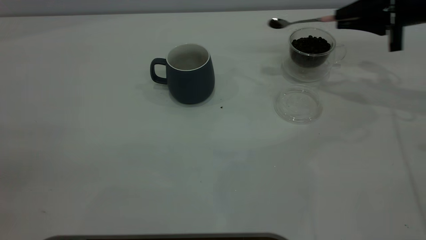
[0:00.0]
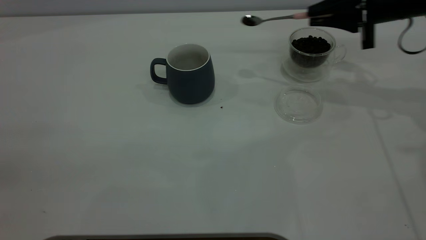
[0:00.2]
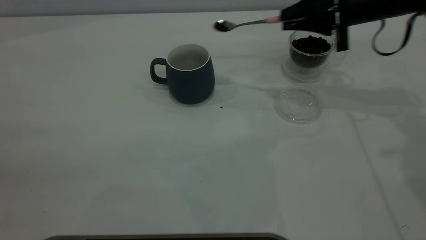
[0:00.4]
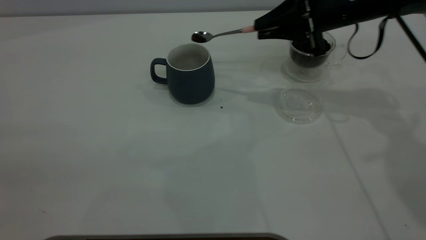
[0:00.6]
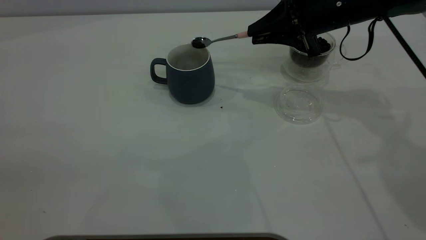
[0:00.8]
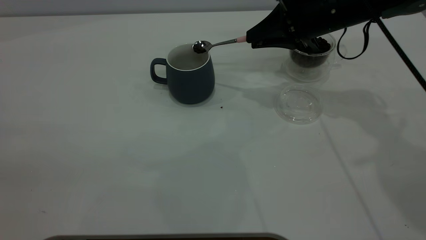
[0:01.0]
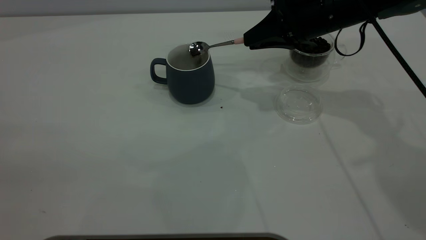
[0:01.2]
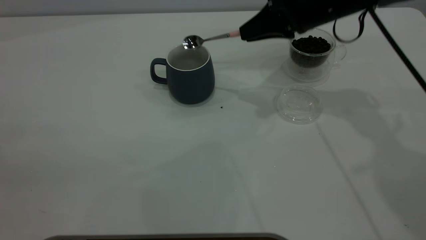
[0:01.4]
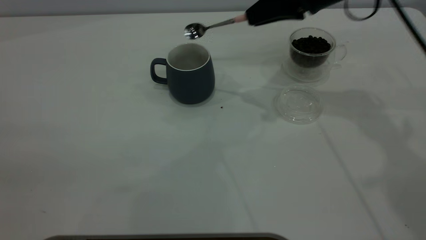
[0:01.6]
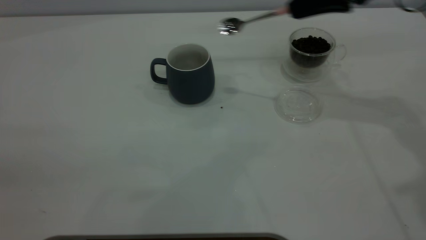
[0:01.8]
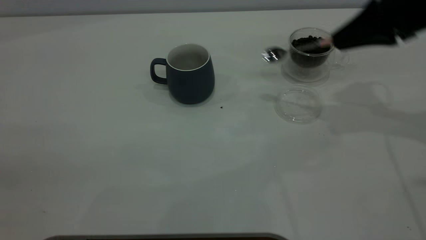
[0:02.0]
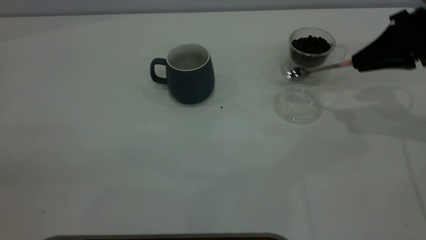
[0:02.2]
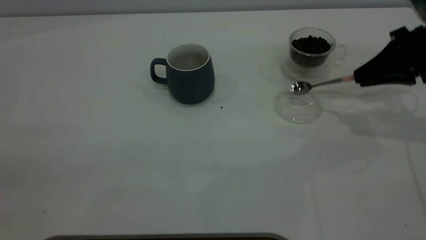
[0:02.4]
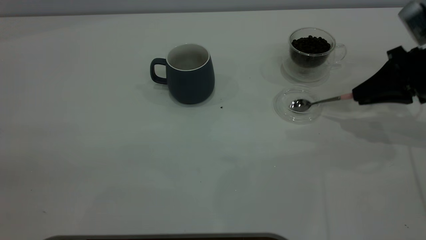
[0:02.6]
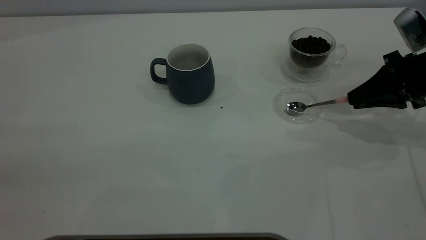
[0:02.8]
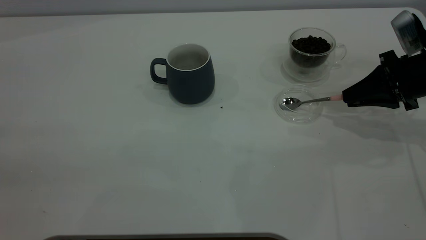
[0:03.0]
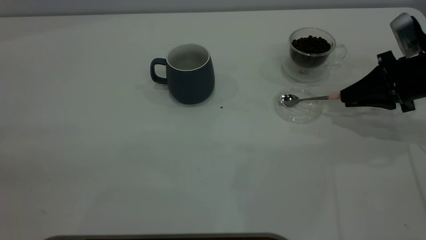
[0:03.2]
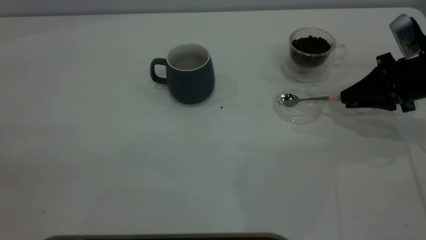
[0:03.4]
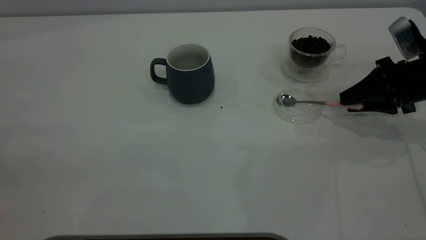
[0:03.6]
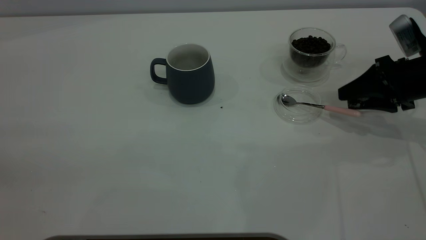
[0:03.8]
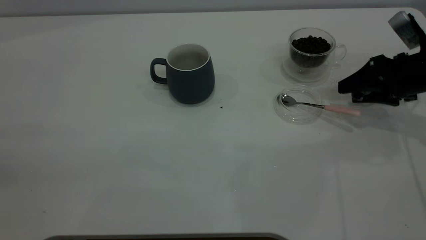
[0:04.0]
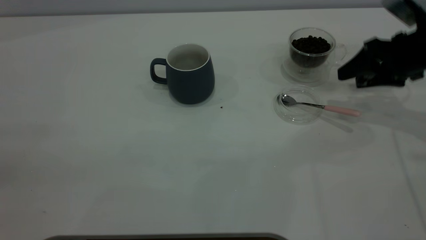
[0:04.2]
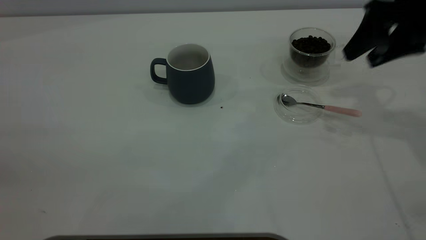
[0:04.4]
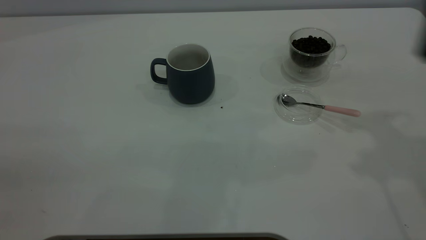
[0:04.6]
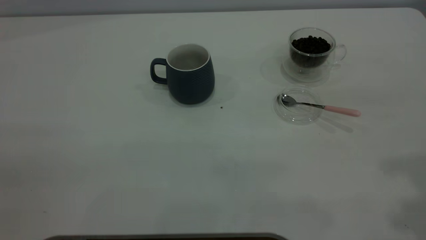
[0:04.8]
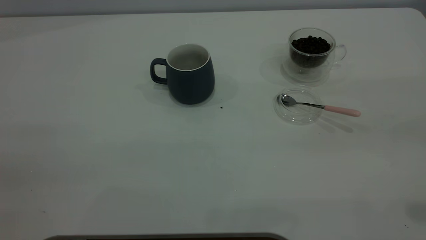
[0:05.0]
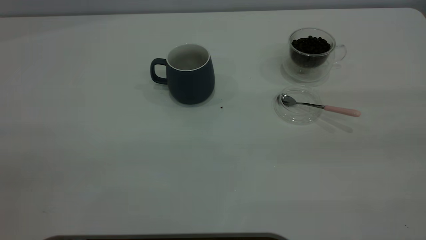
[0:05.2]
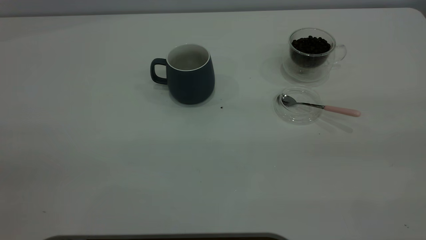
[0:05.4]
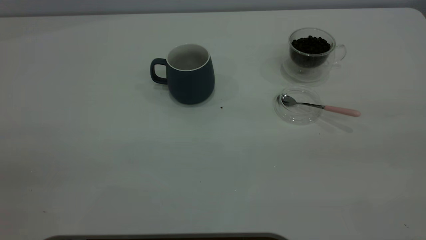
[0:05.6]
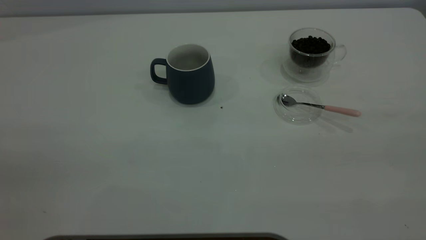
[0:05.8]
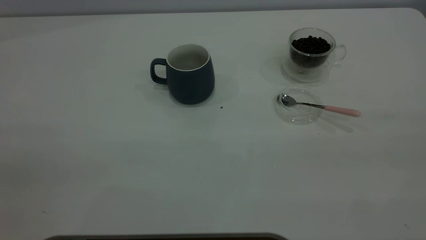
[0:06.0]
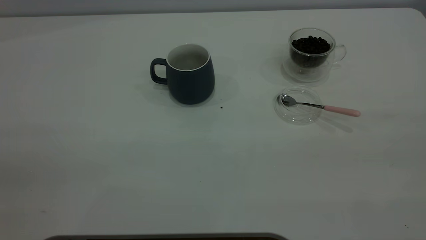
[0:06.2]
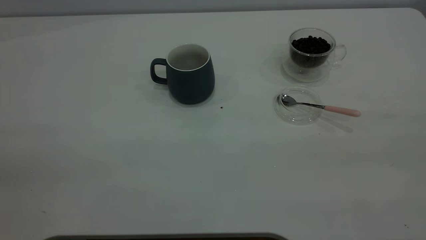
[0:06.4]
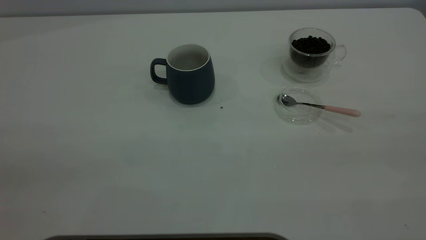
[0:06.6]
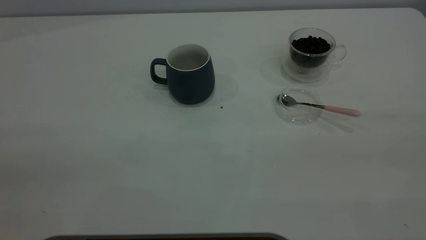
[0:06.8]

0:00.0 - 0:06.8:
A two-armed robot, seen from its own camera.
Task of the whole recording: the left gripper place the grey cup in the center of the table, the right gripper take the pink spoon from the cup lid and scoop out the coffee beans from the coffee cup and put them into the grey cup, the right gripper put the spoon back into the cup lid.
Step, 0:01.8 - 0:04.2: Place the spoon back in its original place.
0:00.0 - 0:01.4: The right gripper moves to the left, roughly 15 cm.
0:01.4 - 0:02.8: The right gripper moves to the right, downward and backward, roughly 20 cm.
0:02.8 - 0:04.0: The right gripper opens.
0:04.0 - 0:05.4: The right gripper shifts about 40 cm backward and upward.

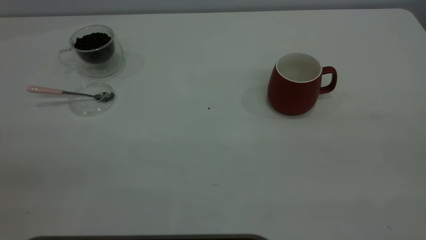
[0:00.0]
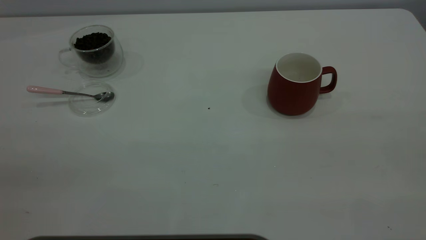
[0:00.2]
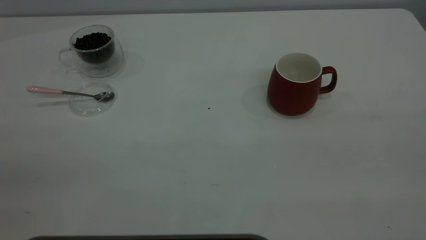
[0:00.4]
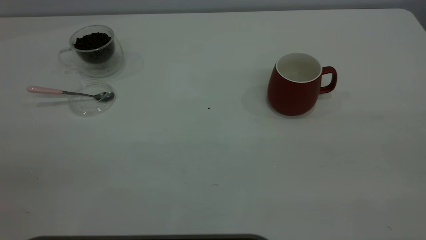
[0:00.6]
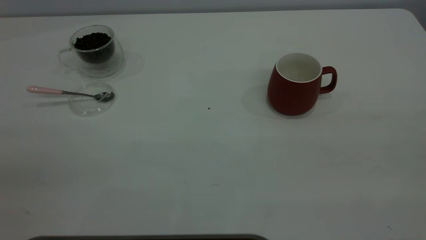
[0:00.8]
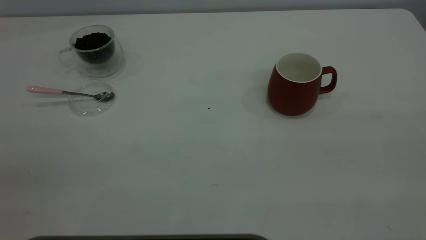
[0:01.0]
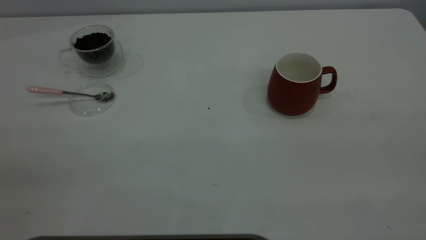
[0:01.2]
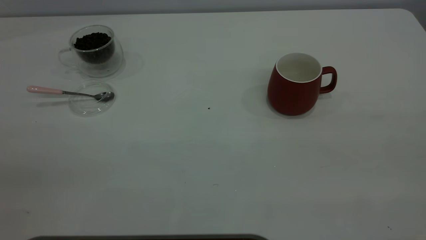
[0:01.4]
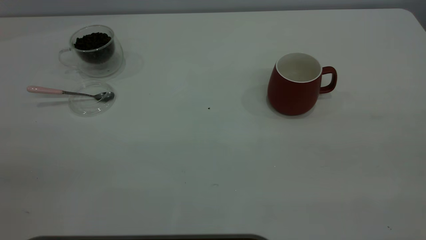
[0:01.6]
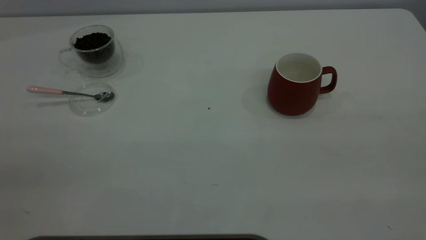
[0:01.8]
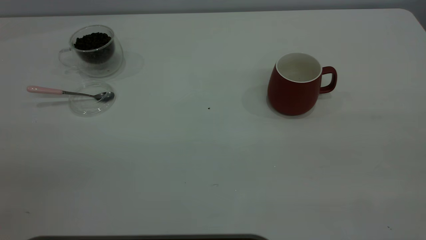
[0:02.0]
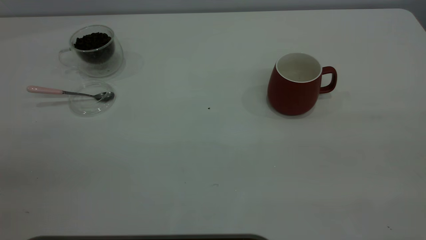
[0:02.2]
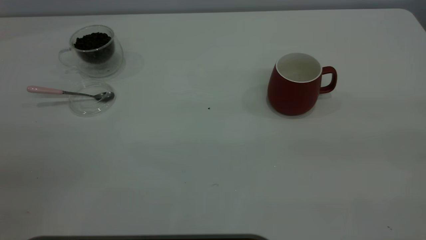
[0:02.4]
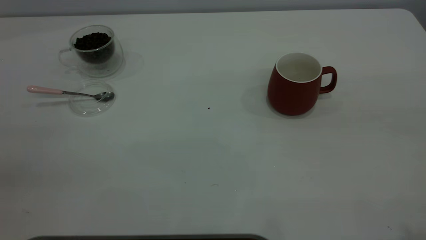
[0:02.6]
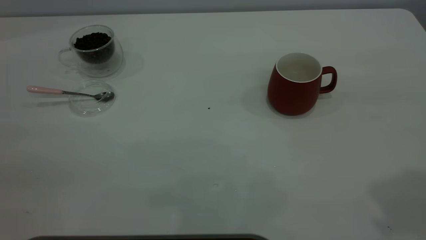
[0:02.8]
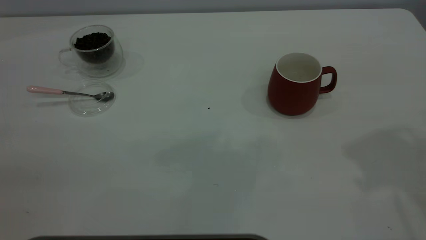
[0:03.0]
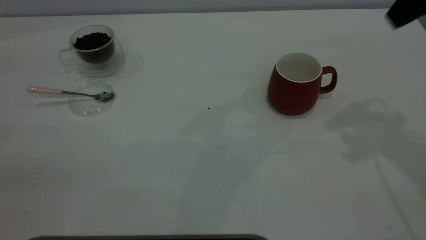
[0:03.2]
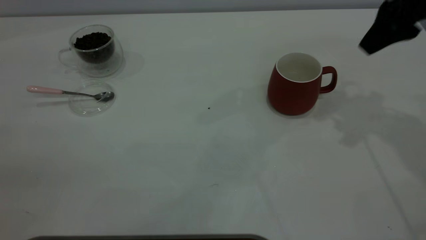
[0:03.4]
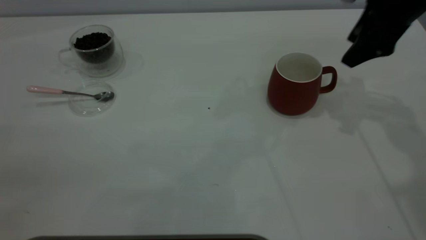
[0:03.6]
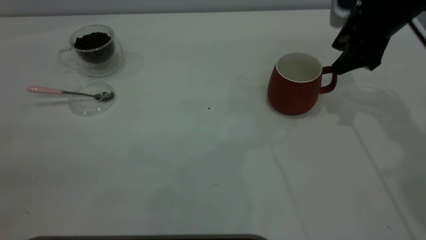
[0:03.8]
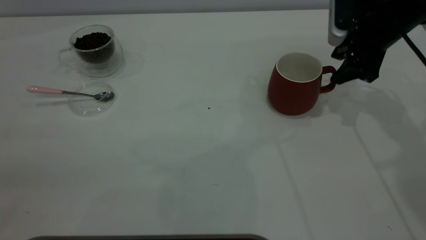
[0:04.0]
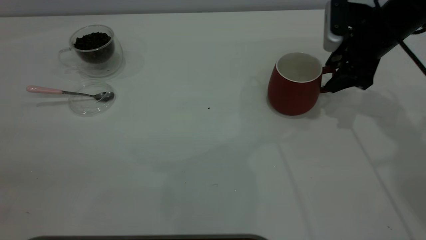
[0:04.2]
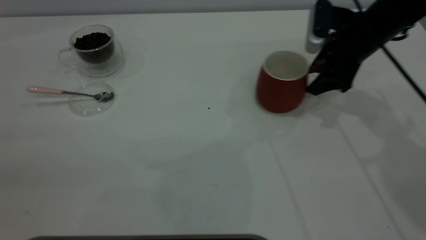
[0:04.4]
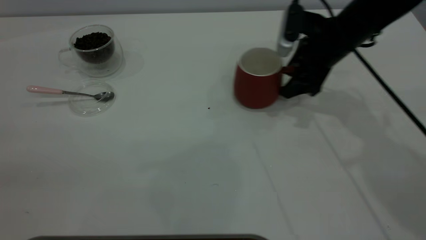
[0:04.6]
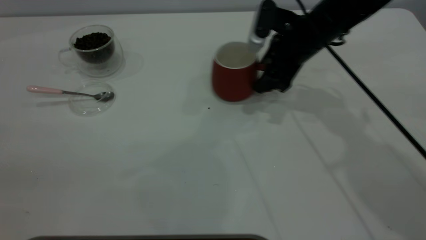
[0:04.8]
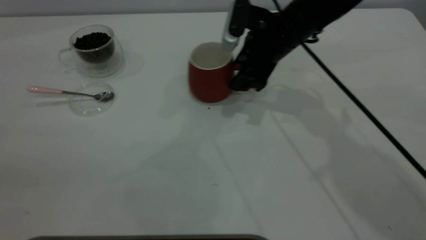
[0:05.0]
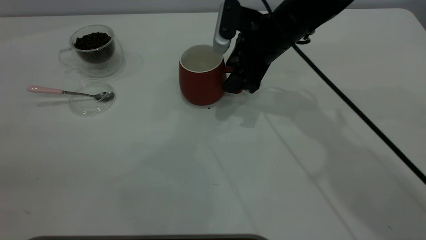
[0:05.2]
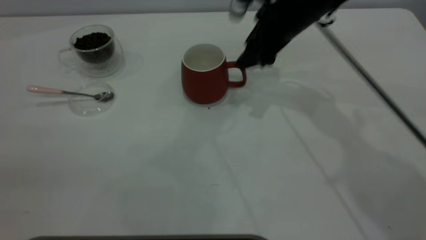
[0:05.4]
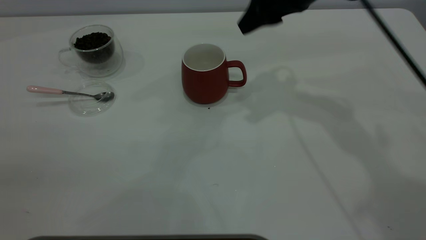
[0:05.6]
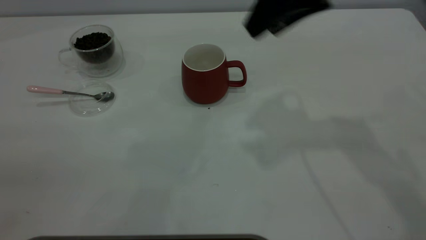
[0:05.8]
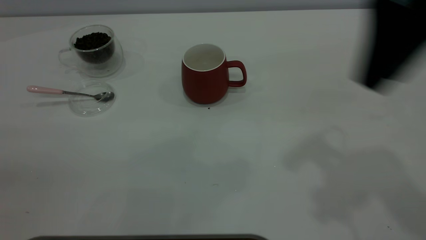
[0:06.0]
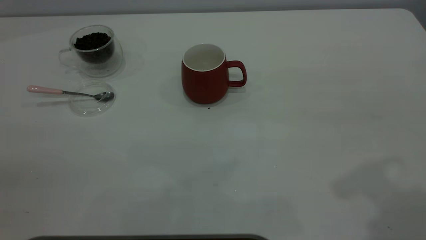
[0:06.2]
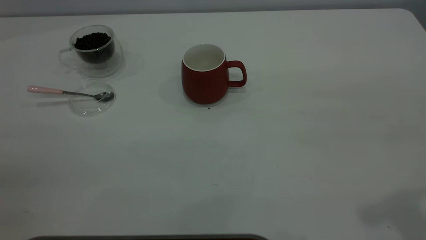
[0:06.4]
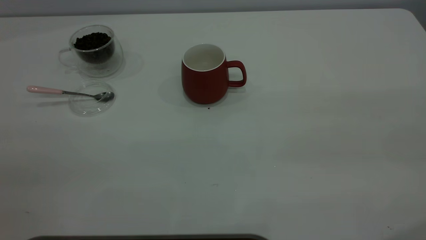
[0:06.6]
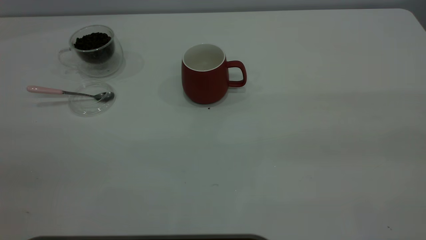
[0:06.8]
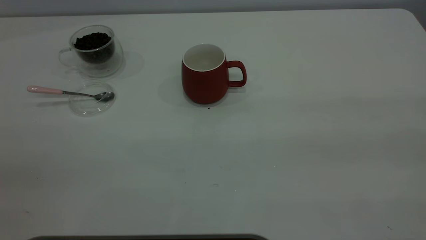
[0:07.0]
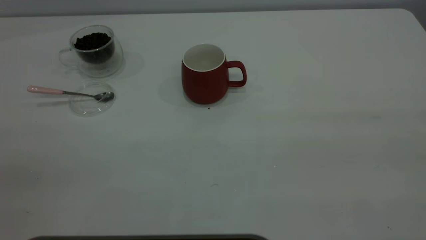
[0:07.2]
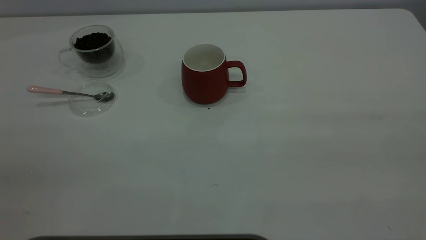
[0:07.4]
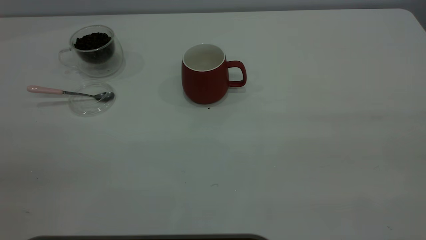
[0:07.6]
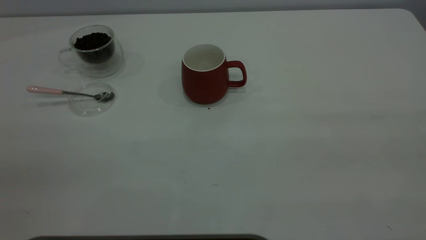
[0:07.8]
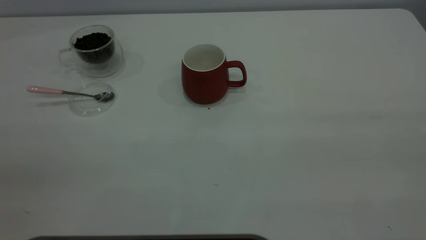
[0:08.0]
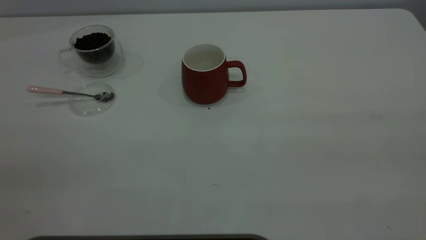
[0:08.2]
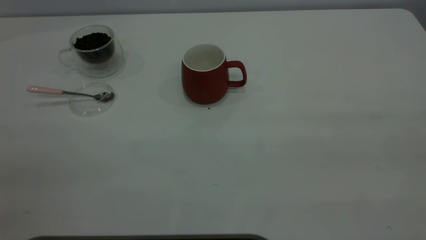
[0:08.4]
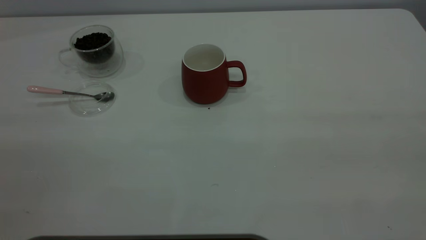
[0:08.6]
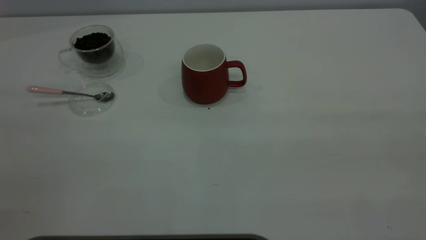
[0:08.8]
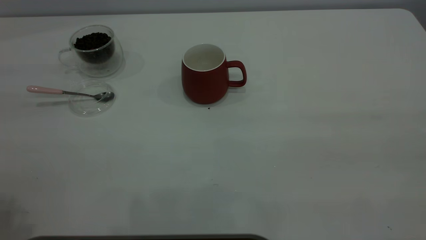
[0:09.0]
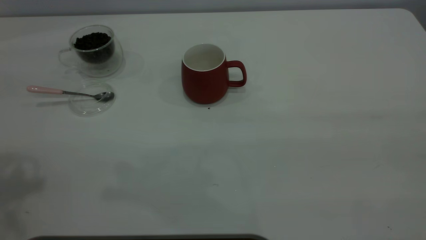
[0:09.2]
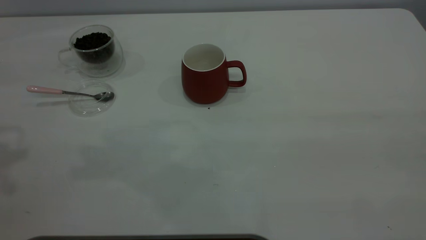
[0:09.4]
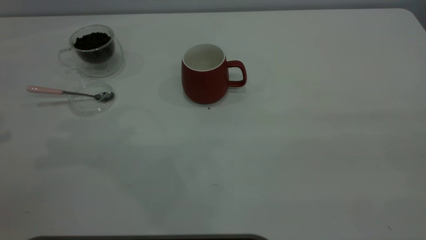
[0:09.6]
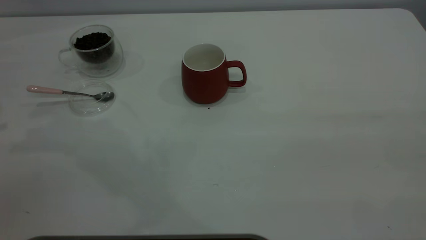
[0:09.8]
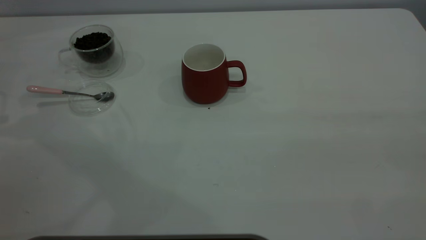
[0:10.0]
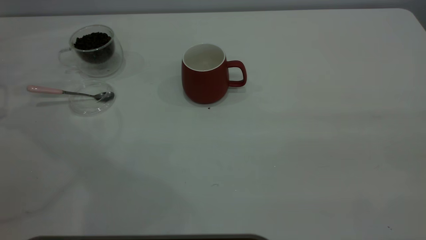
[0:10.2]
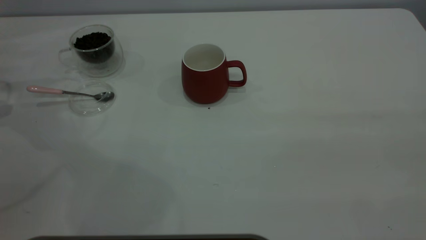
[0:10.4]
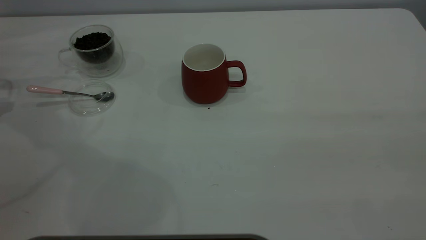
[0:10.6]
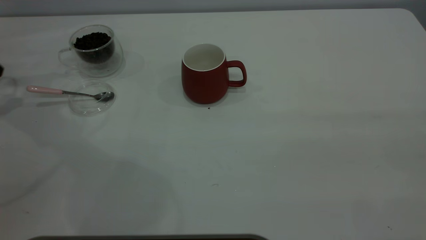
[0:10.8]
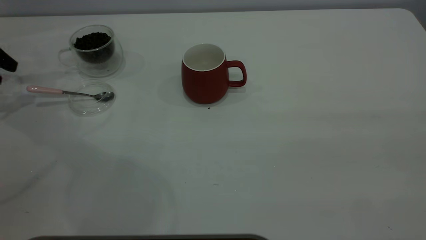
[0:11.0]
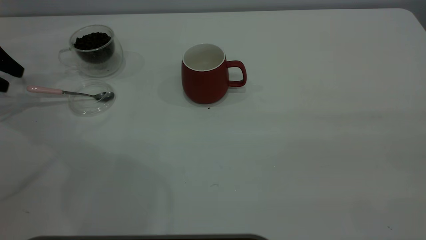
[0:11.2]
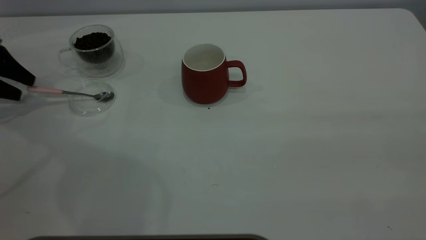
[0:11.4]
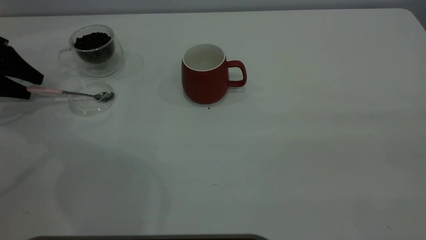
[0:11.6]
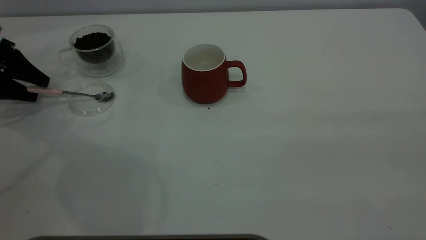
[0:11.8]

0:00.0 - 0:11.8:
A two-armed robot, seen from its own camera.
Task of the whole recording: the right gripper place the red cup in the center of the table, the left gripper take the pink spoon from the cup lid and scoop out the coffee beans from the coffee cup and put them into the red cup, the left gripper put the spoon back into the cup lid.
Step, 0:00.0 - 0:05.6: Move the cup to the center of view.
0:00.0 - 0:01.4: Both grippers stay about where they are.
0:03.0 - 0:04.4: The right gripper shifts approximately 25 cm downward and forward.
0:04.4 - 0:06.0: The right gripper goes approximately 25 cm upward and backward.
0:06.0 - 0:07.4: The right gripper travels backward and to the right by about 25 cm.
0:10.4 - 0:11.8: The left gripper travels downward and to the right by approximately 10 cm.
